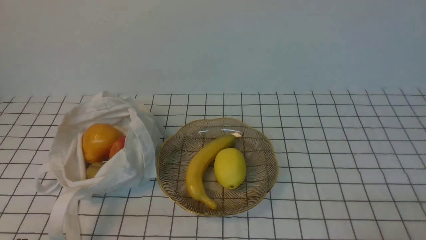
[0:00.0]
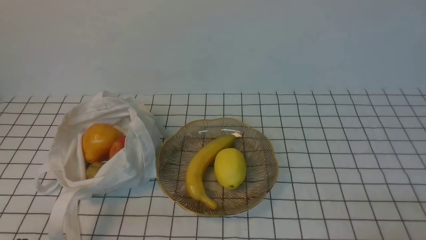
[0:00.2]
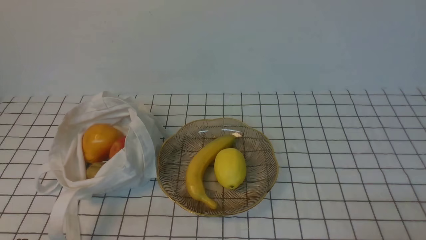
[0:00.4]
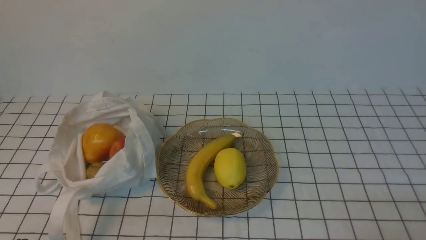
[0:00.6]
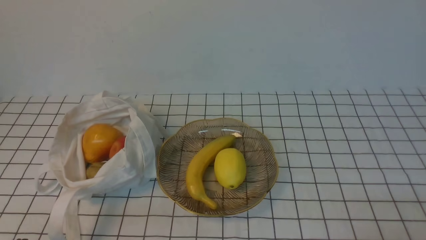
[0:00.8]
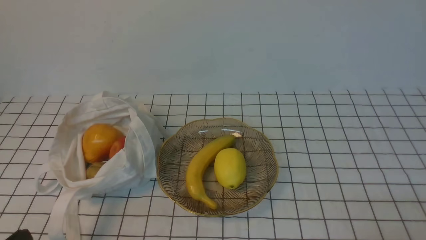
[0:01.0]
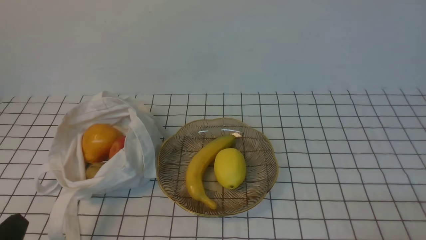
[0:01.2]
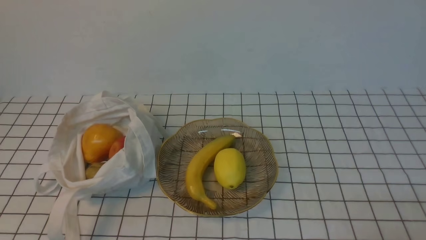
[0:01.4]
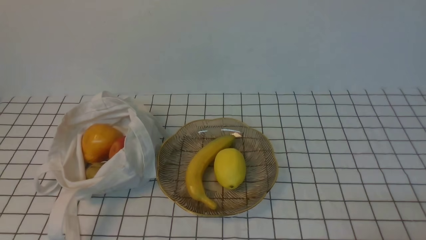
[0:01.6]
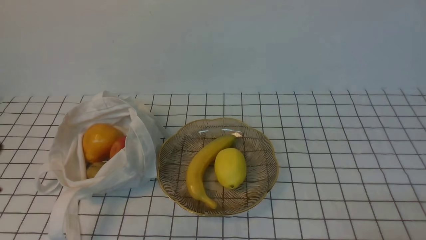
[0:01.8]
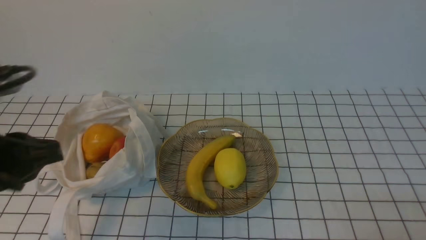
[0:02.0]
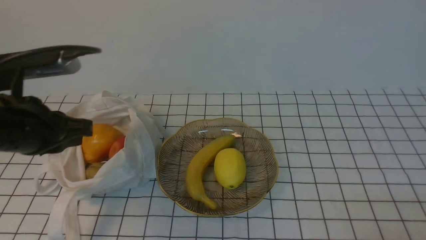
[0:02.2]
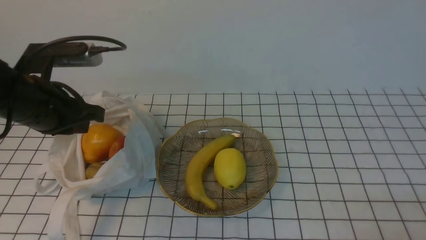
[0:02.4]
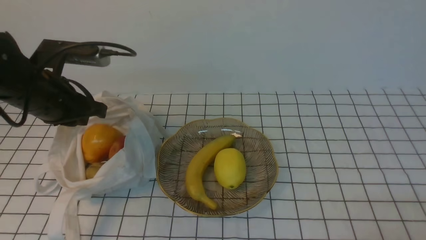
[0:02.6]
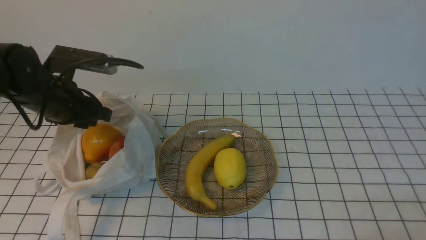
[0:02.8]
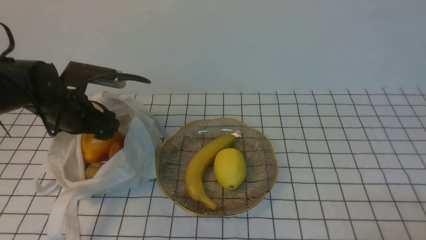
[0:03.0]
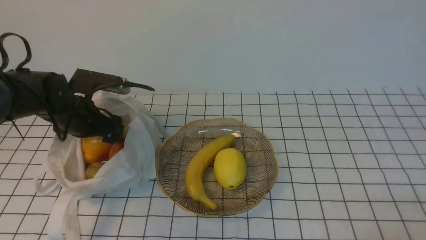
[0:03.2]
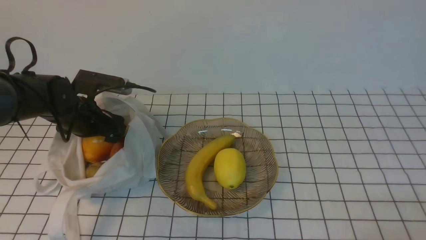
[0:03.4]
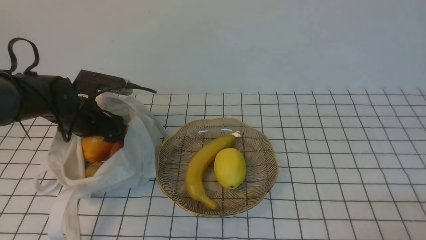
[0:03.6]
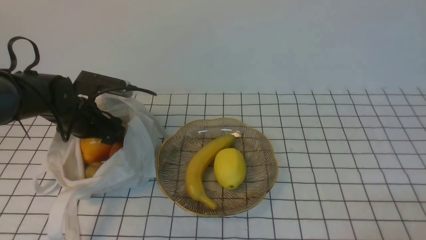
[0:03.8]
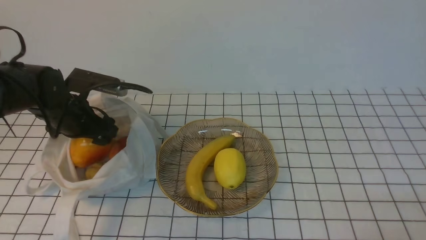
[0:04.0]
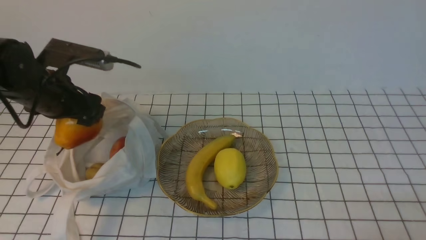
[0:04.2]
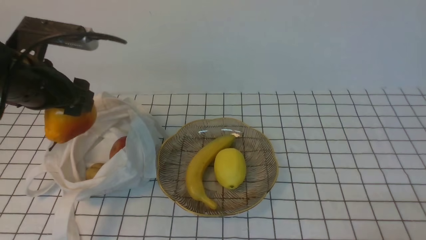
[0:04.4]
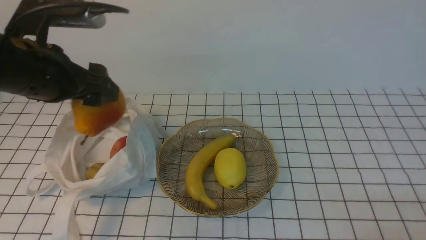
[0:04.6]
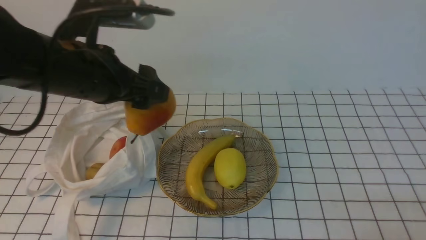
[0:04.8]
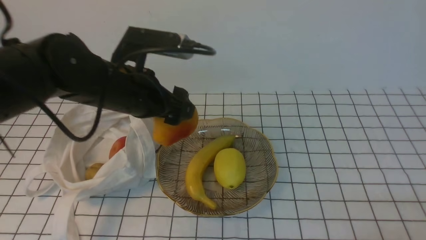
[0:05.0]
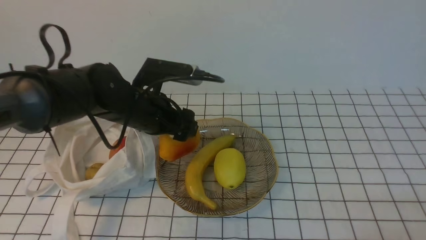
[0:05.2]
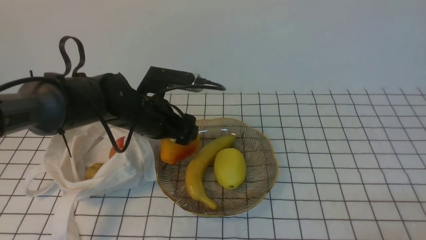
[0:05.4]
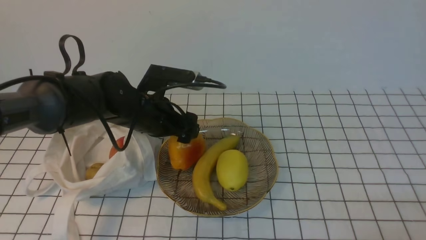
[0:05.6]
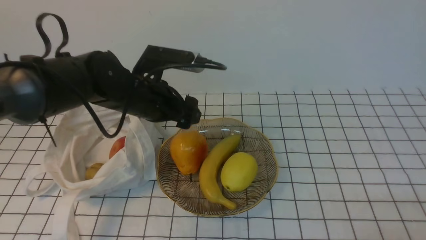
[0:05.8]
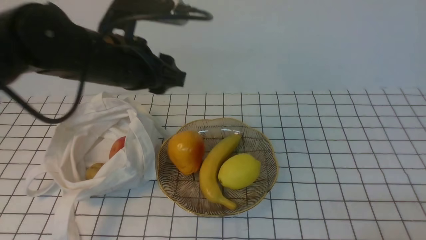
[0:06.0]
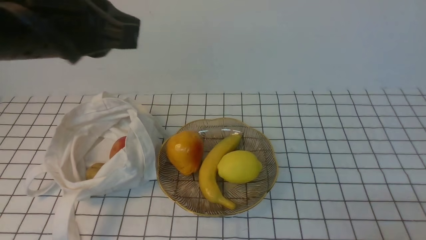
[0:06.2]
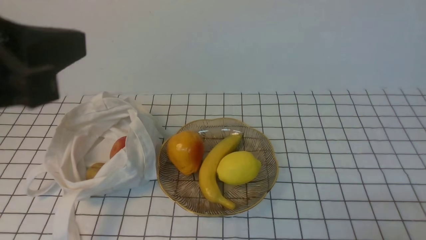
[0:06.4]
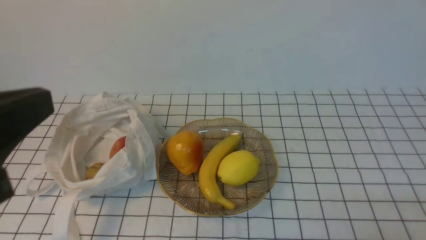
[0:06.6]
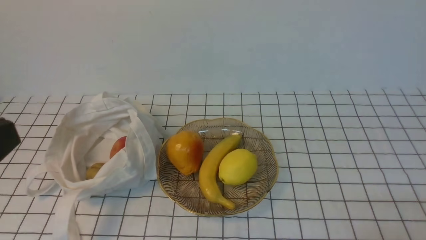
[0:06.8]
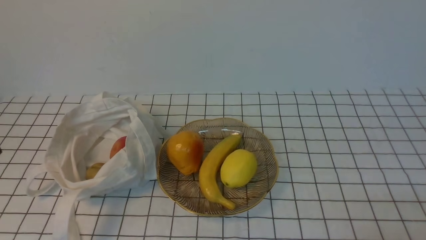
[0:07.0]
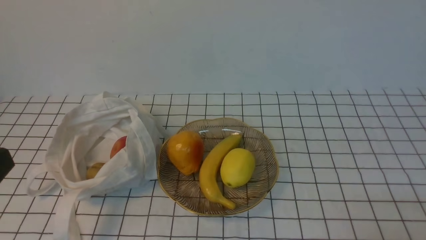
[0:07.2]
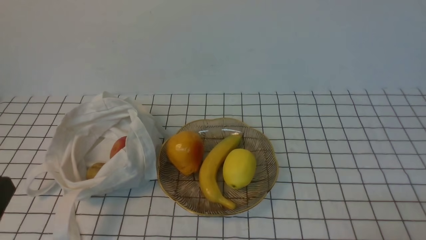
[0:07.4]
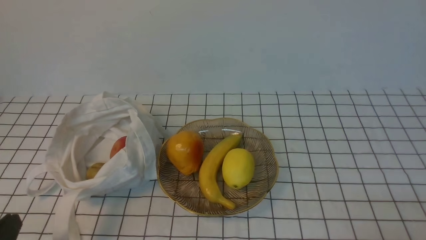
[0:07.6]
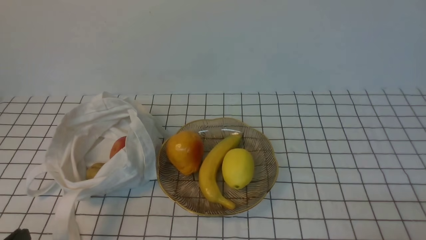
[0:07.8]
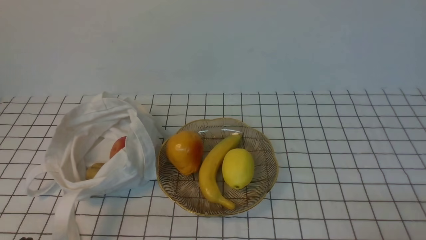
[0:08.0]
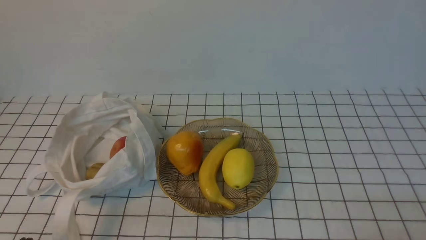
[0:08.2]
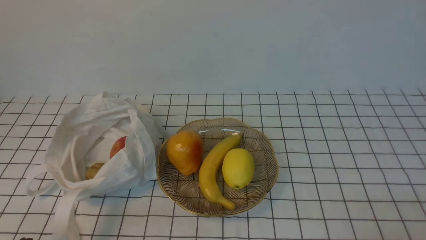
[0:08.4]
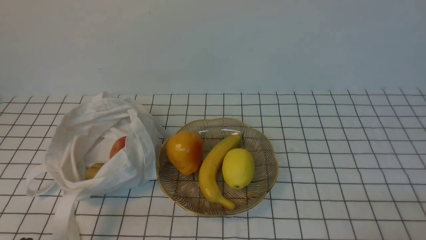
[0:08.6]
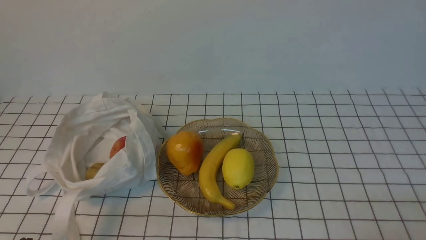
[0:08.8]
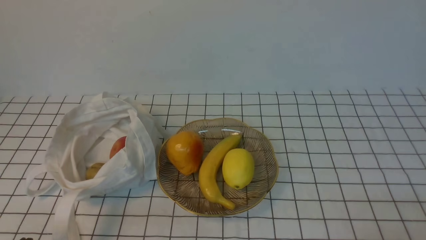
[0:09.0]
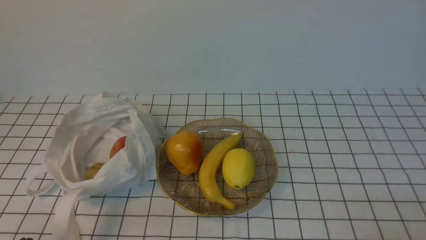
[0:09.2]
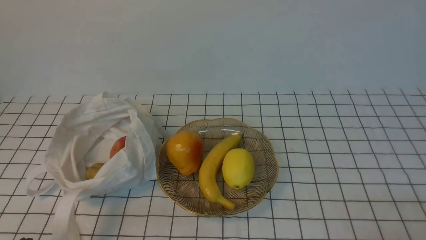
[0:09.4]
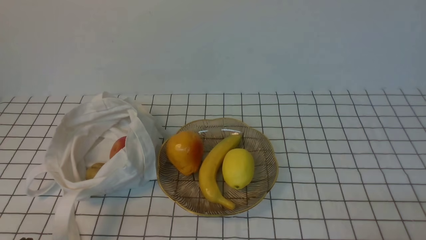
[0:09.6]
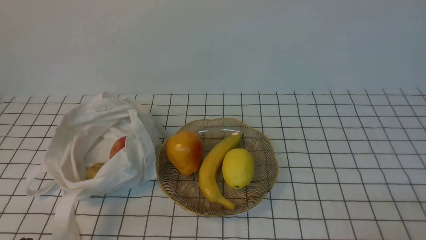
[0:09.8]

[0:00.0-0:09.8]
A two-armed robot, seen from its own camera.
Step, 0:00.0 to 0:04.0: use the left arm to grab a pear from the bag.
Step, 0:04.2 to 0:05.4: use the left arm to put the pear into the empty plate on the right.
0:01.4 to 0:02.8: The left gripper is displaced forward by approximately 30 cm.
0:02.8 to 0:04.2: The left gripper reaches about 10 cm downward, then returns, and opens.
0:04.2 to 0:05.6: The left gripper is displaced to the right by about 15 cm.
0:05.6 to 0:07.0: The left gripper is displaced backward and upward by about 35 cm, and closes up.
0:08.4 to 0:09.8: Neither gripper changes place.
